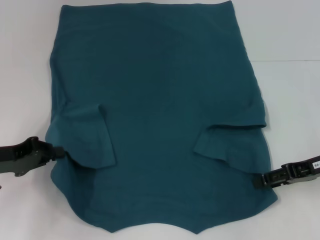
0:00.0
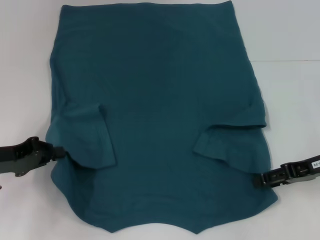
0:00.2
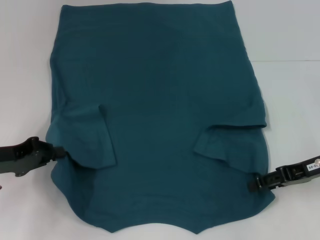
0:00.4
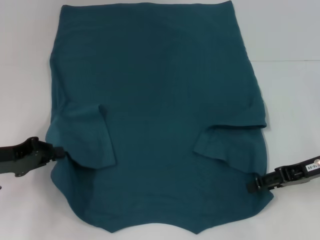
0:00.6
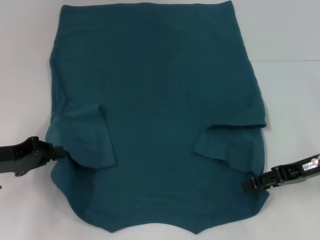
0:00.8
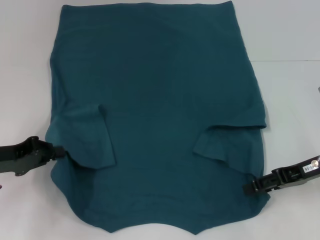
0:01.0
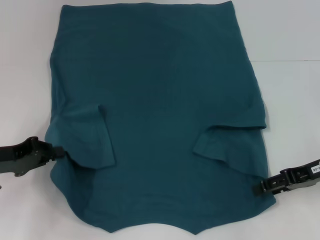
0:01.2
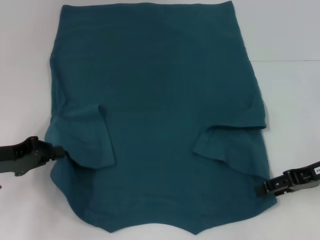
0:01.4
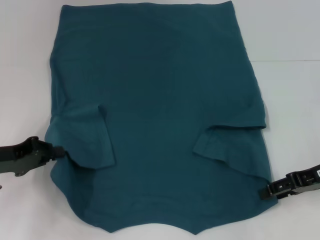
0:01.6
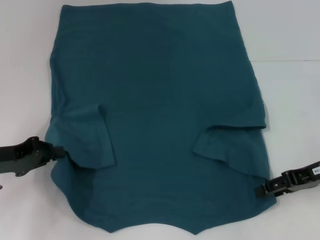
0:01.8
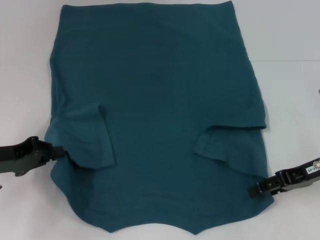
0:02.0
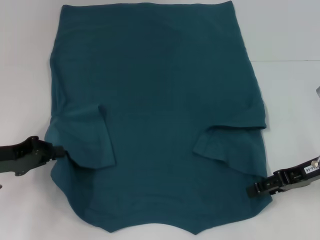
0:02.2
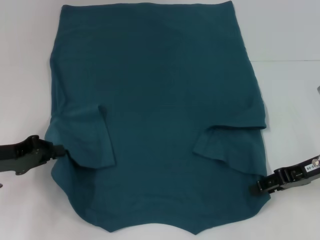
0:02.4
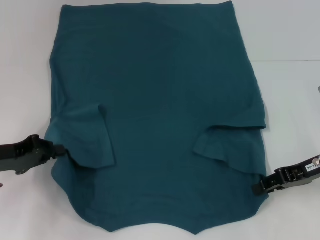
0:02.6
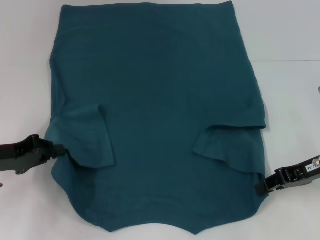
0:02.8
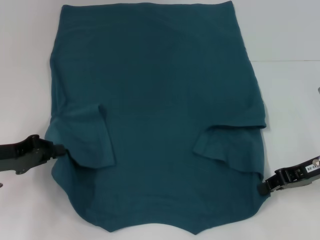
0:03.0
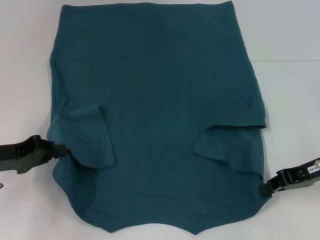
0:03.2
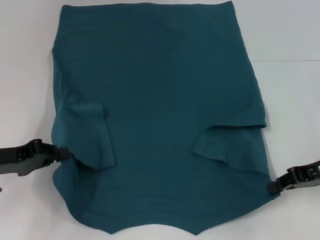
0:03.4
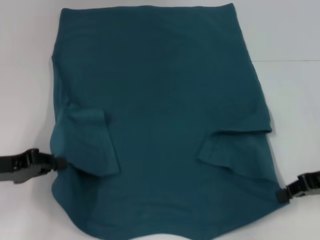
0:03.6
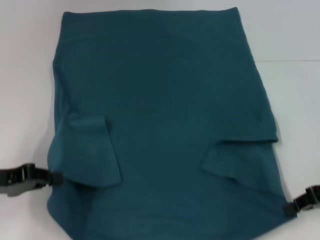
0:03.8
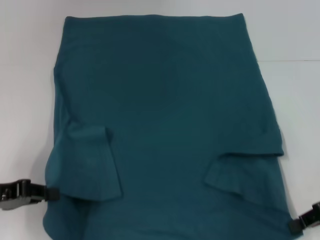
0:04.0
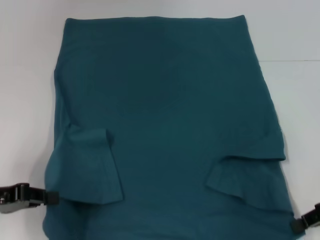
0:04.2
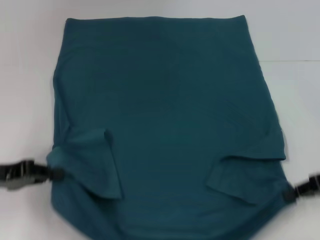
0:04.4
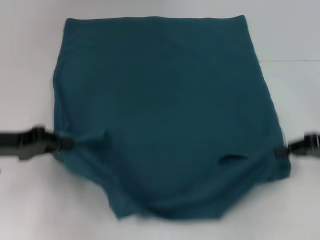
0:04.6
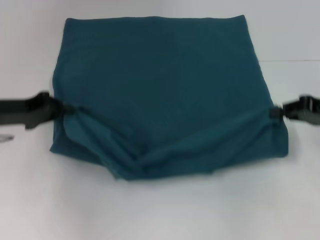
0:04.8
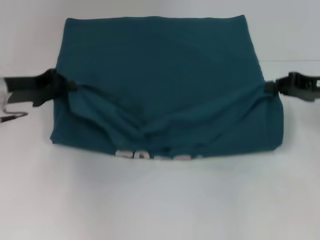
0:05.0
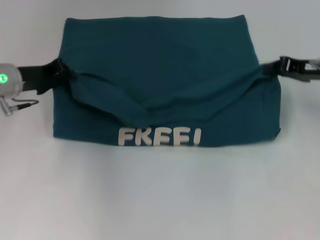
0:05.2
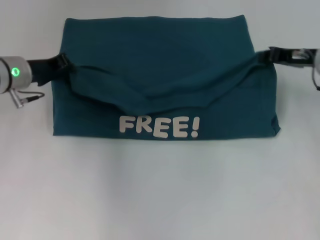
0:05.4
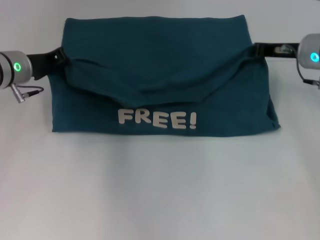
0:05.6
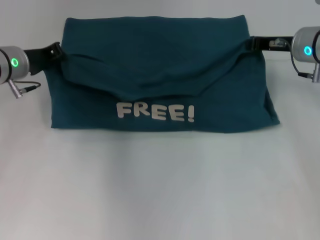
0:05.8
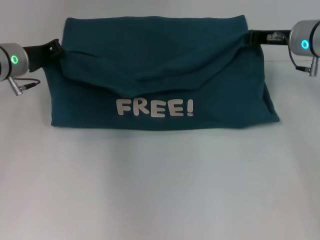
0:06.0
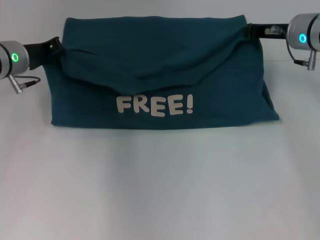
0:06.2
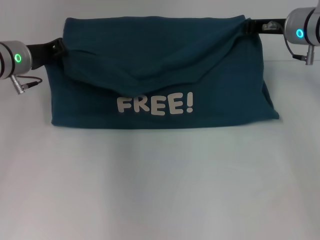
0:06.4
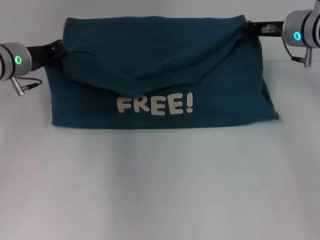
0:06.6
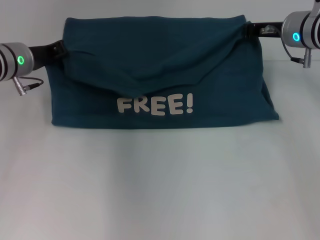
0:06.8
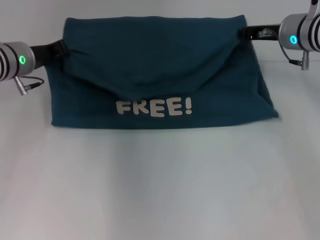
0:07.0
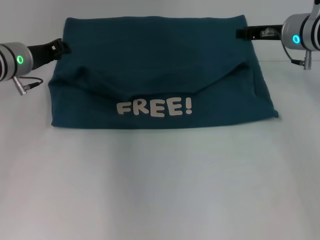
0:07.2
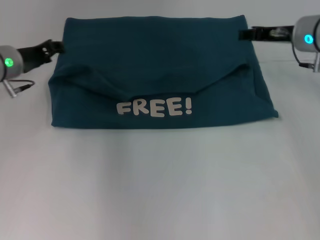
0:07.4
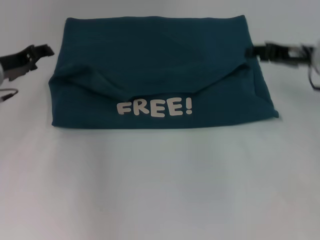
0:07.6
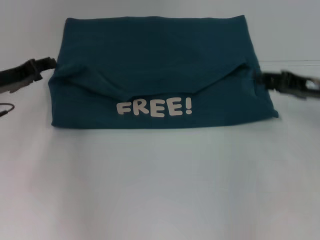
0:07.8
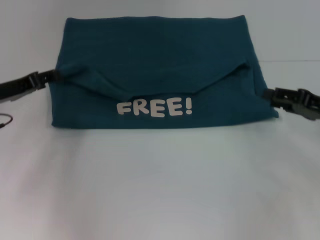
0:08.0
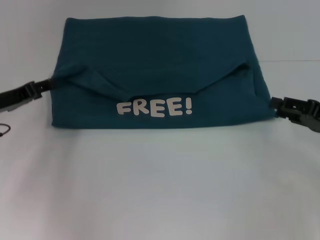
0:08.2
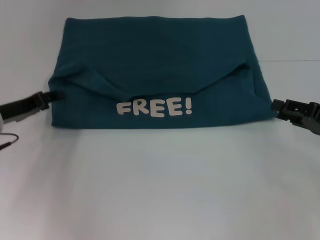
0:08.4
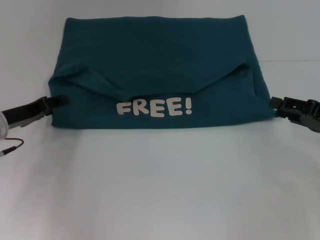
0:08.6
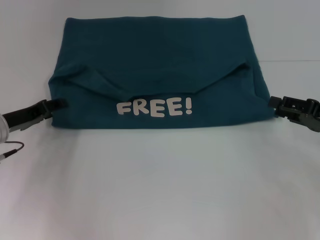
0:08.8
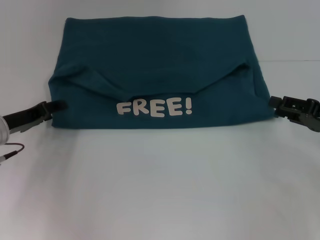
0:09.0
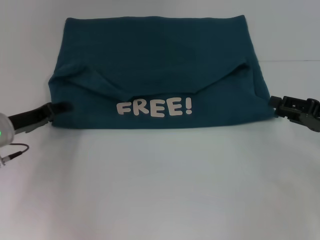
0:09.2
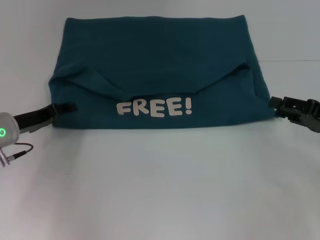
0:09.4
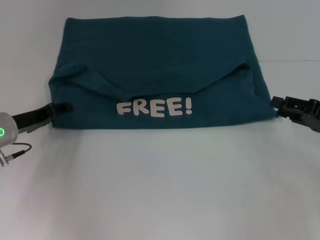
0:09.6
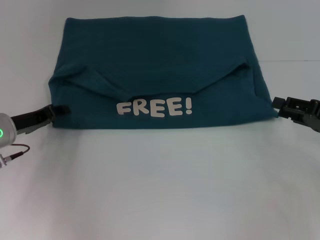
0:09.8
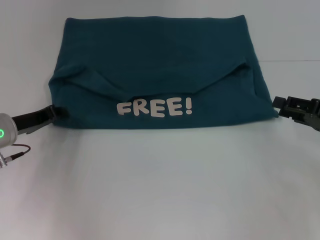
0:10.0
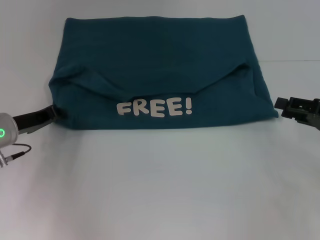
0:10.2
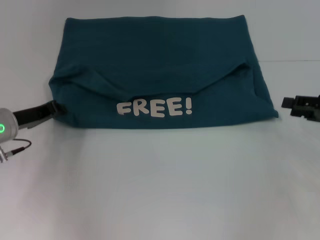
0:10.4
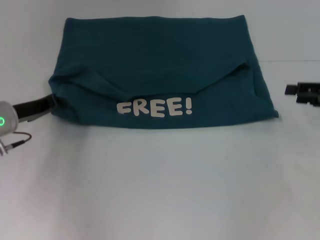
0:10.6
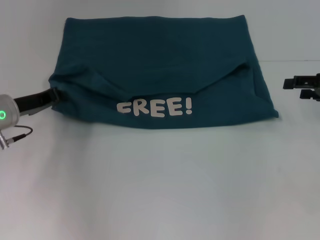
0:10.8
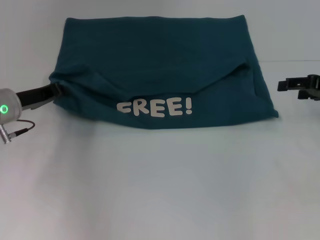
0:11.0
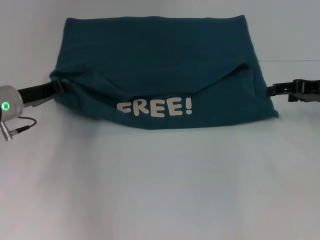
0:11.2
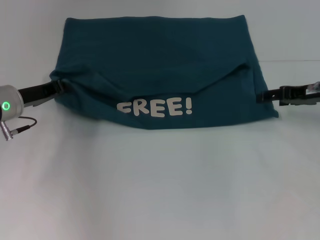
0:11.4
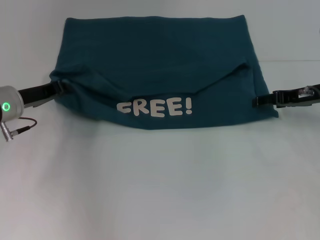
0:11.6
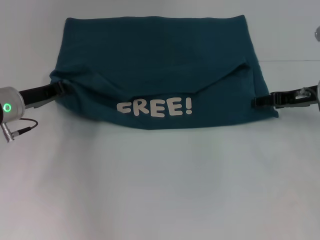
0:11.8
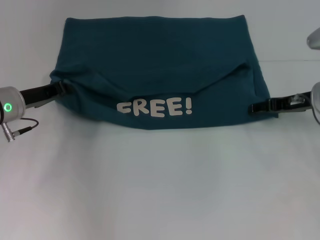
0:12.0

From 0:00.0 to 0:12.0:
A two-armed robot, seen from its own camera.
Step, from 0:00.0 to 0:03.0: Grab the bottom right corner with your right hand.
Step, from 0:03.2 to 0:07.4: Fold the clothes to the left.
Step, from 0:03.2 to 0:07.4: Fold the clothes to the right.
From 0:00.0 to 0:01.6: The grippers make only small movements.
From 0:01.6 to 0:03.0: The right gripper closes.
From 0:03.0 to 0:04.4: The right gripper moves approximately 5 cm.
From 0:04.4 to 0:06.0: The right gripper is displaced forward and to the left by about 20 cm; the left gripper travels forward by some 15 cm.
From 0:06.0 to 0:07.6: The left gripper opens its fingers.
From 0:07.6 to 0:09.0: The left gripper is displaced downward and backward by approximately 10 cm. Meanwhile the right gripper travels backward, to the right and downward by approximately 15 cm.
From 0:09.0 to 0:10.4: The left gripper closes its fingers.
From 0:10.4 to 0:12.0: The right gripper goes some 10 cm to the left and forward.

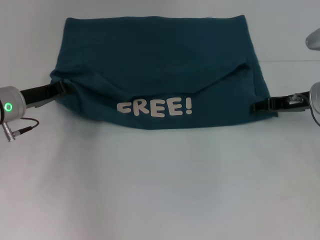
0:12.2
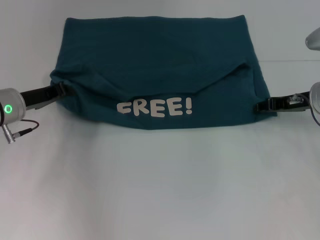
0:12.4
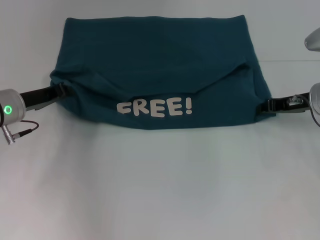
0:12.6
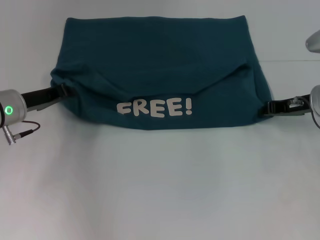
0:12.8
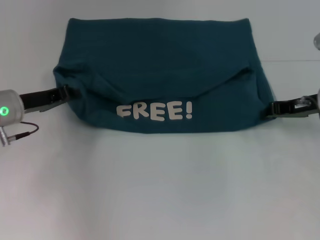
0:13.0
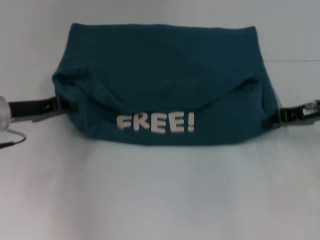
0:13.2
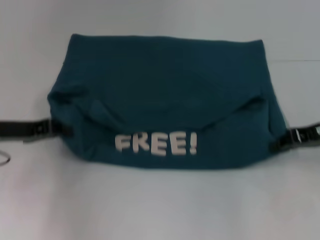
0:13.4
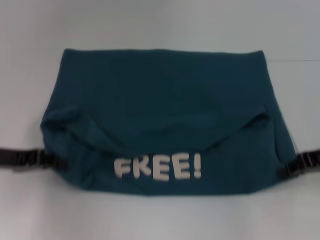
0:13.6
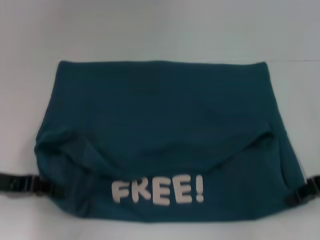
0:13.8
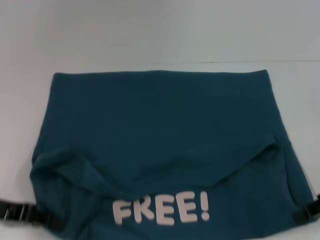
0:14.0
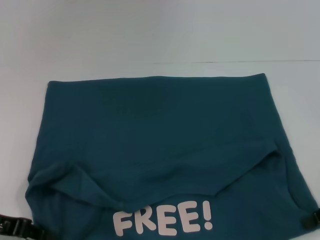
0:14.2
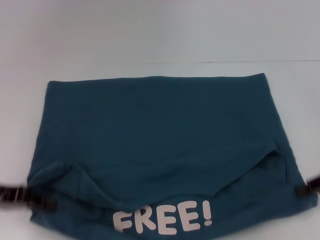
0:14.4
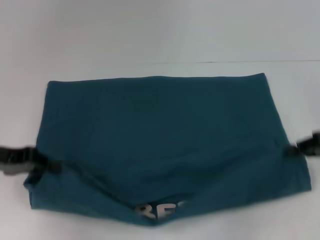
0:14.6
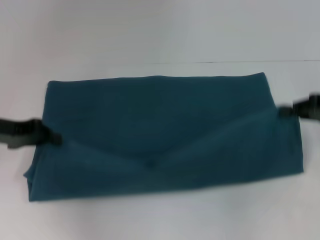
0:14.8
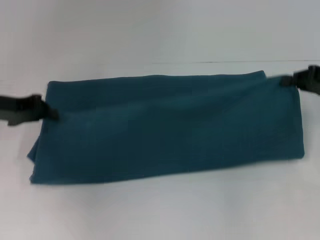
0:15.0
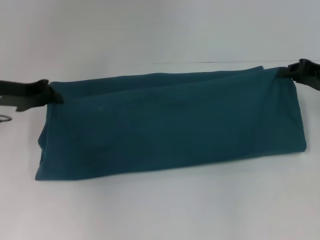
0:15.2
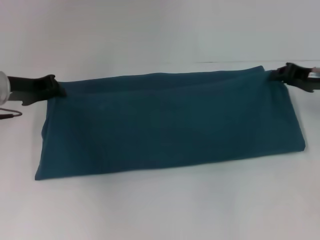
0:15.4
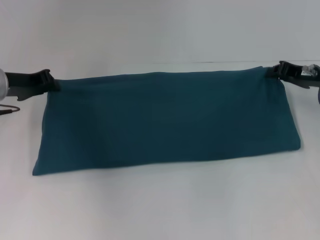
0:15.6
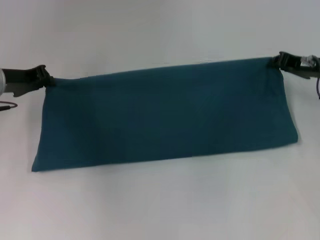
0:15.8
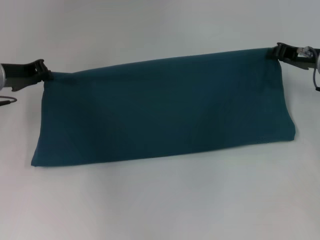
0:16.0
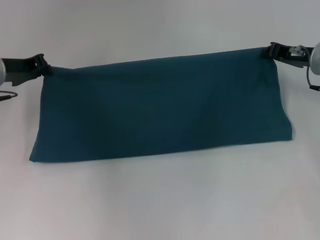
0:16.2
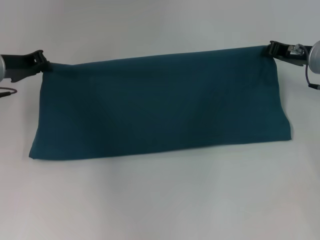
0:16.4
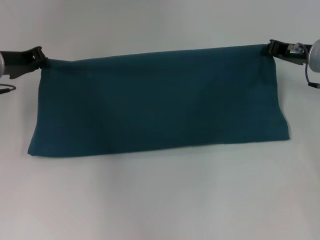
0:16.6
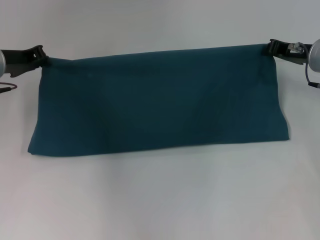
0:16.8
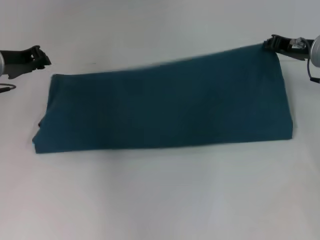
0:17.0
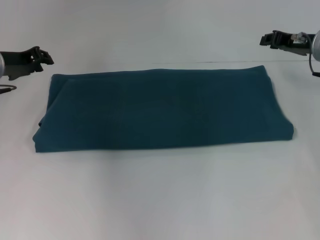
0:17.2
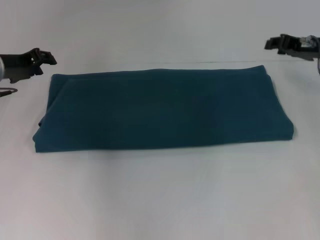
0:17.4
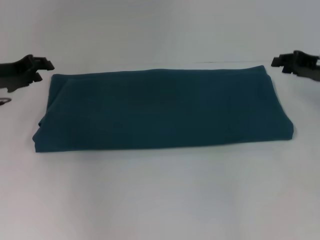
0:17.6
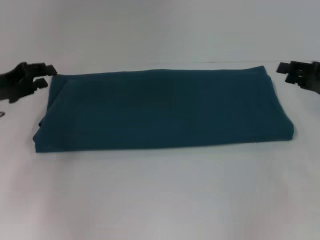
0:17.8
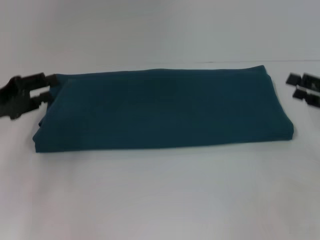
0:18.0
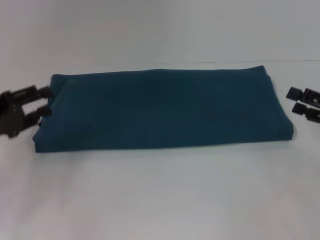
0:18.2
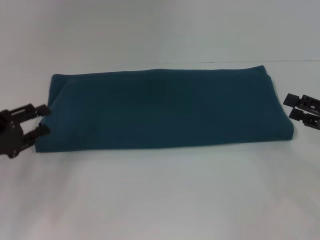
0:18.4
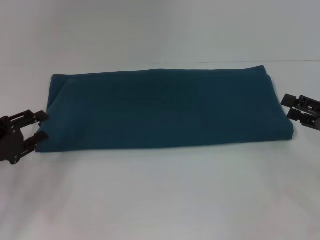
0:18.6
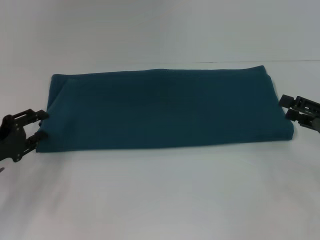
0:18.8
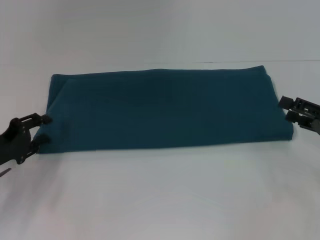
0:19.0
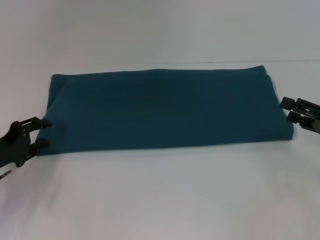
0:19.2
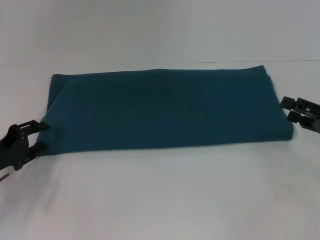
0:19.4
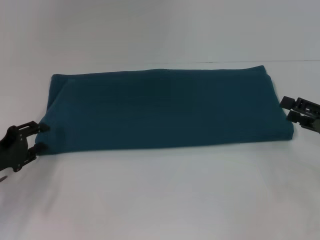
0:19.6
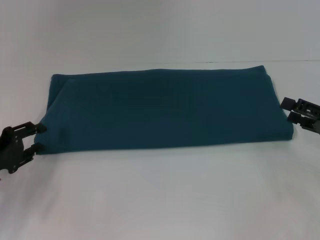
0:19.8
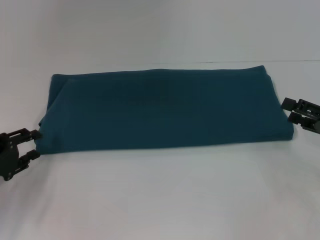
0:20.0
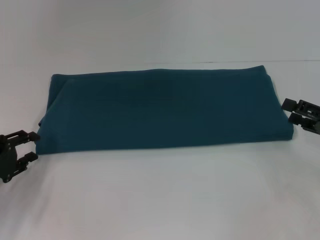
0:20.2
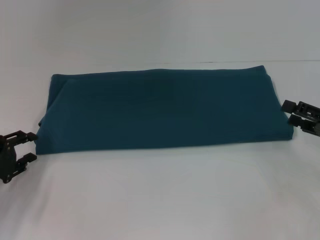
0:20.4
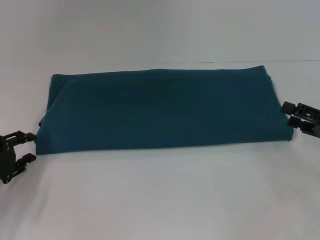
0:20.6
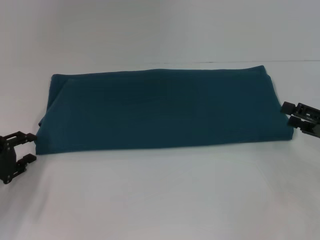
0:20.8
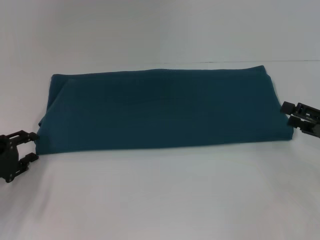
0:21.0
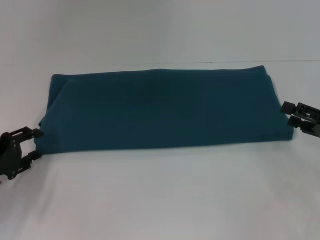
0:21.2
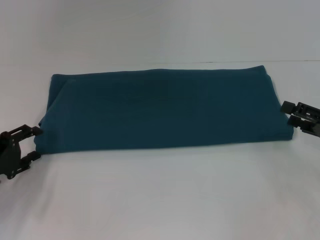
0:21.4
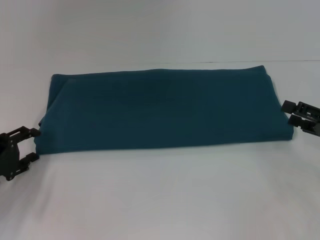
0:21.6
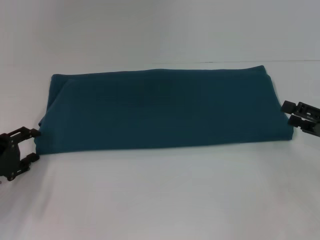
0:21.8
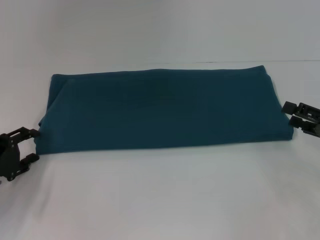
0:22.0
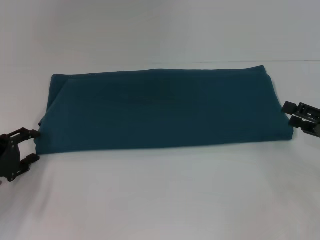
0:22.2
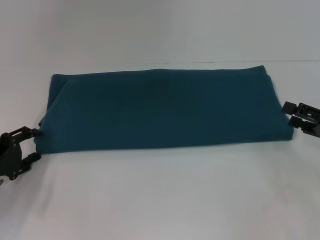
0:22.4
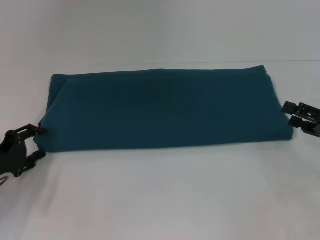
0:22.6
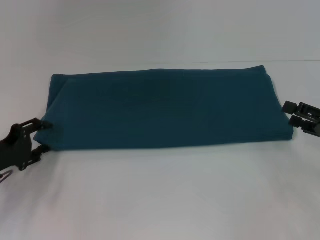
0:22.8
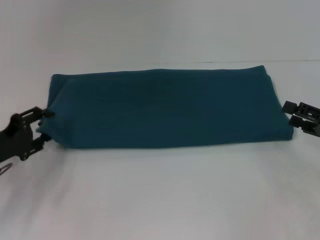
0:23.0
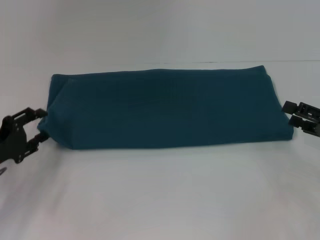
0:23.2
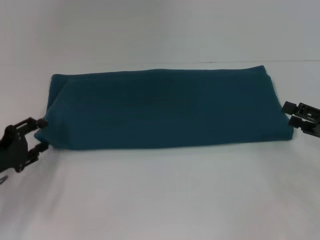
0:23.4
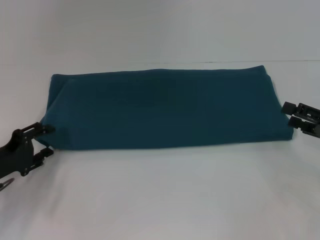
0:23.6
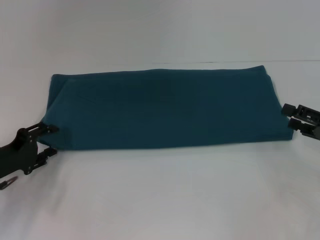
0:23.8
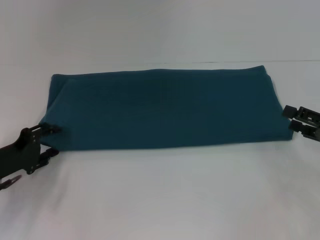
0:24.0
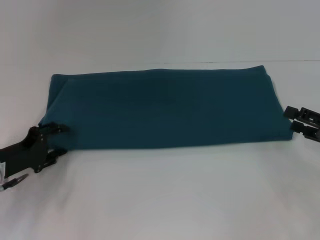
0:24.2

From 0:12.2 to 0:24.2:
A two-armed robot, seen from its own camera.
Step, from 0:14.2 to 0:17.0: Fold the clothes to the right.
From 0:12.2 to 0:13.8: Both grippers move backward, about 10 cm. The right gripper closes up.
From 0:13.8 to 0:15.2: The grippers both shift forward by approximately 10 cm.
From 0:15.2 to 0:16.6: The right gripper is displaced to the left and forward by approximately 10 cm.
From 0:16.6 to 0:18.2: The left gripper goes roughly 15 cm backward, and opens, while the right gripper travels backward and to the right by some 15 cm, and opens.
From 0:18.2 to 0:19.8: The left gripper is displaced downward by some 5 cm.
From 0:19.8 to 0:21.2: The grippers stay close to where they were, moving slightly.
From 0:21.2 to 0:22.6: Both grippers stay put.
From 0:22.6 to 0:24.2: The grippers move only a little.
